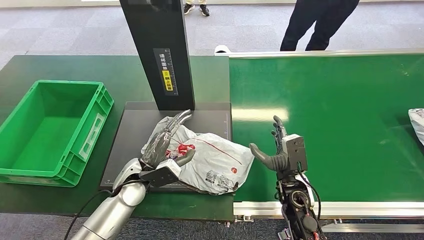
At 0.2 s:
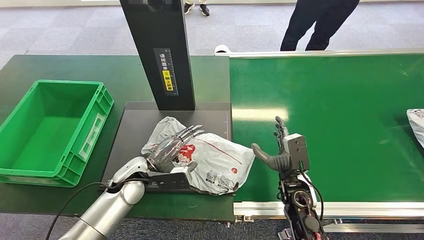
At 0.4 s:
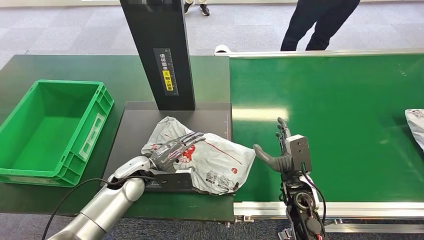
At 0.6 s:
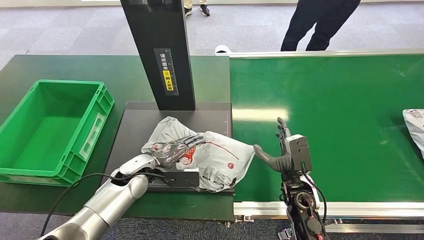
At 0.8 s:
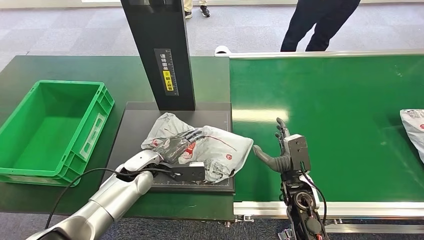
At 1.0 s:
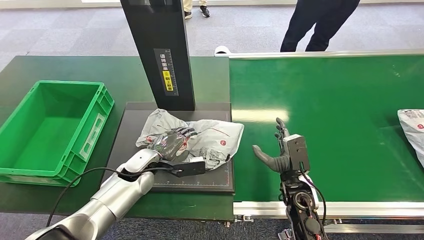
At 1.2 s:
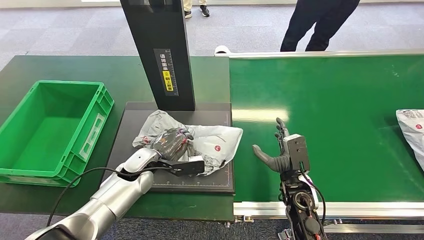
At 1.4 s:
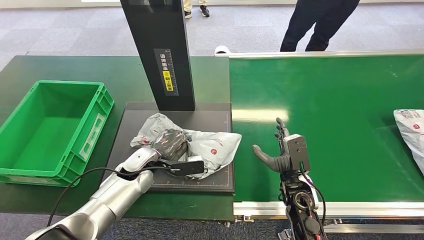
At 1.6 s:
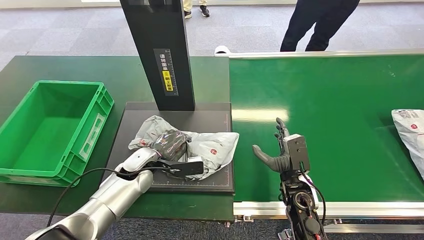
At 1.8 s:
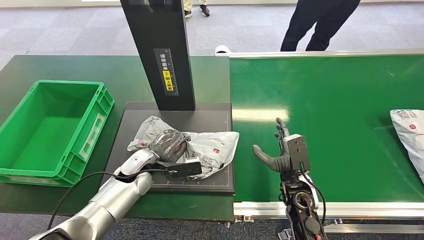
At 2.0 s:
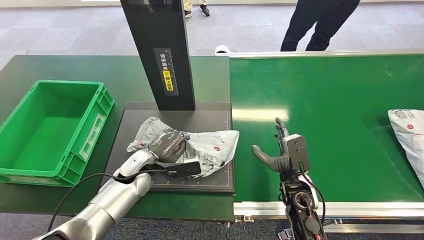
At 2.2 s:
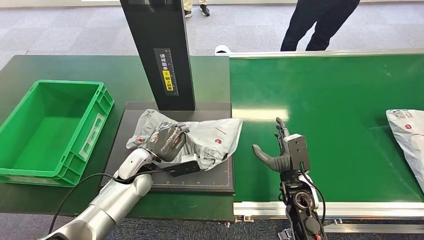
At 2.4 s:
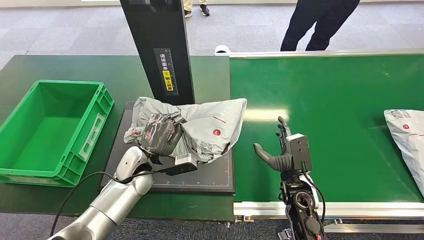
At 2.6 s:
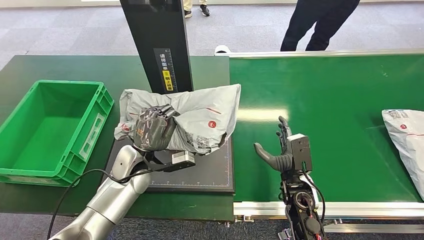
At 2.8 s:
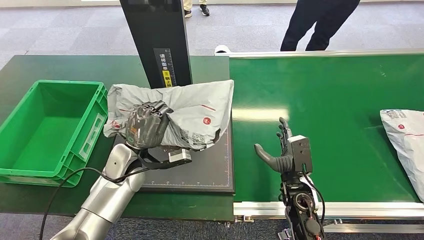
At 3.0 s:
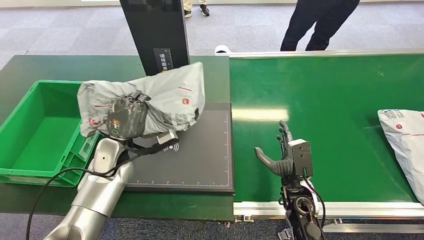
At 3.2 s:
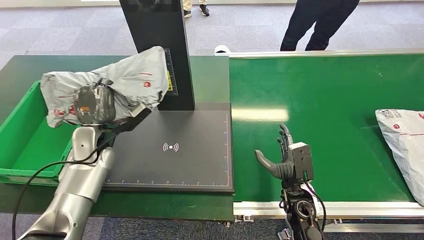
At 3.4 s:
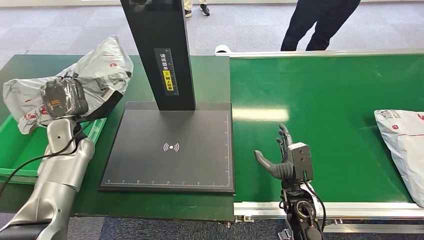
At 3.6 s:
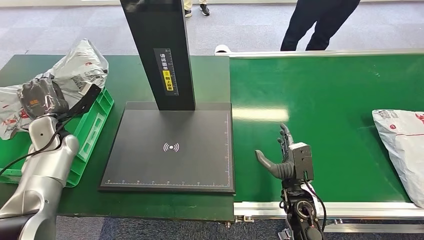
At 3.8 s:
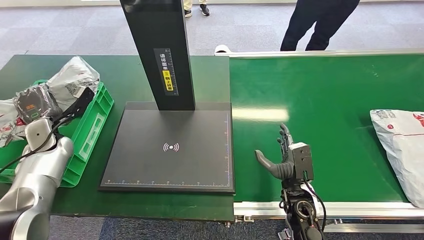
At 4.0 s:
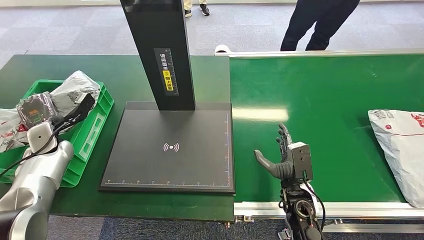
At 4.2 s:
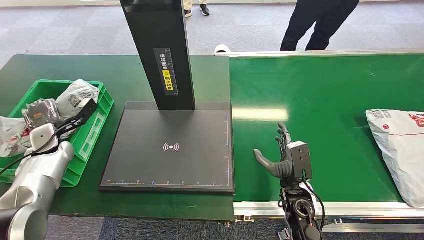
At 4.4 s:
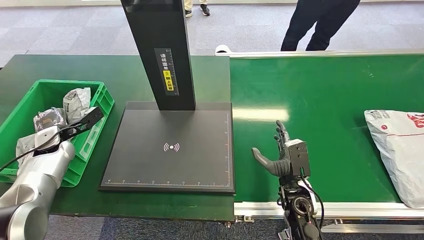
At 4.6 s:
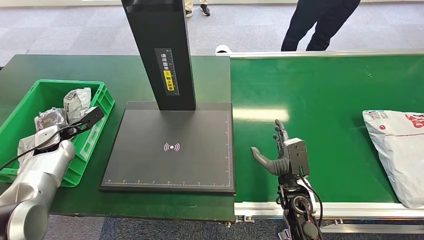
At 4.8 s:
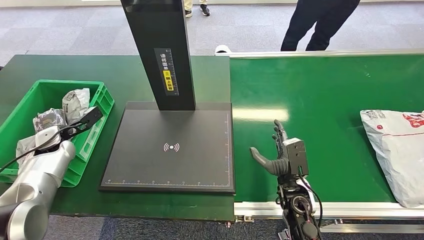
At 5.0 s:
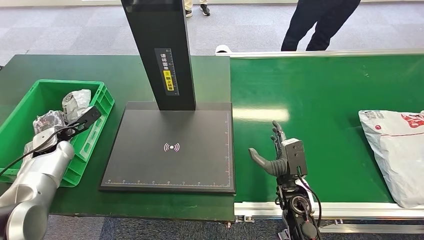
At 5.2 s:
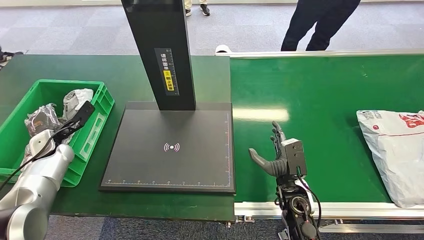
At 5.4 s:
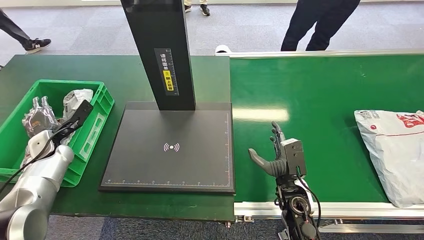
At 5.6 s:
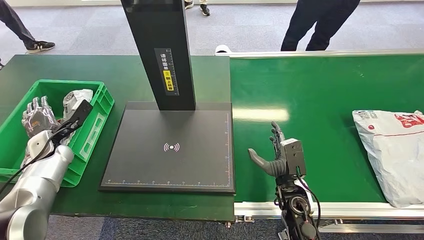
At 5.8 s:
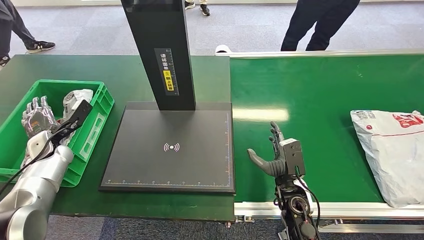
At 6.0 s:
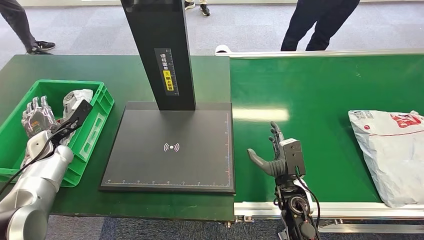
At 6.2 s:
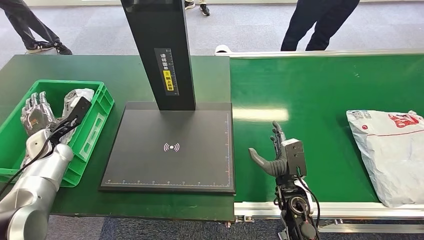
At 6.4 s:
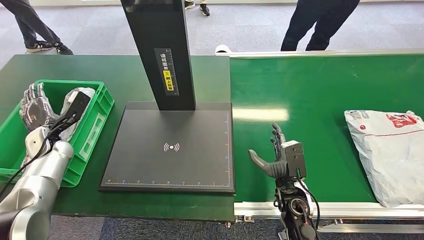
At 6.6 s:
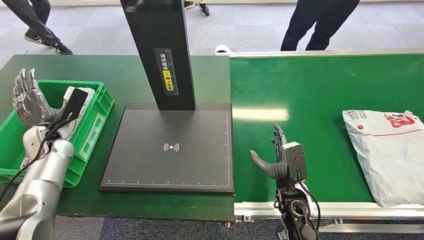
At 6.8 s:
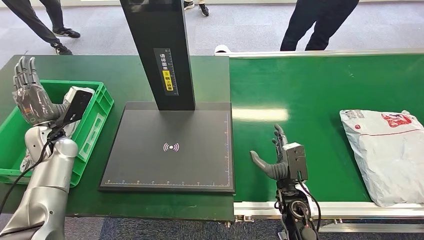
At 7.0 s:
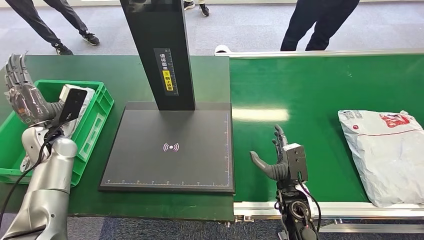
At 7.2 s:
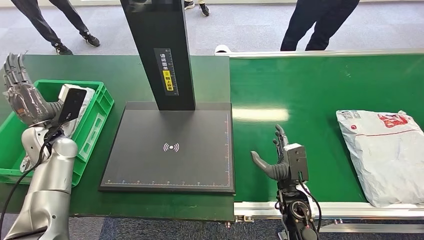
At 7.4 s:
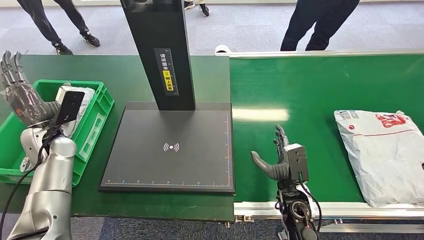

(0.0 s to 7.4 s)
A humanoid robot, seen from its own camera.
Step, 0.0 s - 3.0 s: Pick up the package from the inbound machine.
Step, 3.2 s - 7.4 s: Place the package into the parcel locker.
4.4 s - 6.0 s: There are only small adjustments of the hands.
6.0 s - 7.4 s: The left hand shifts some 10 cm upward and to the right.
